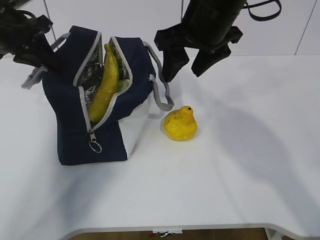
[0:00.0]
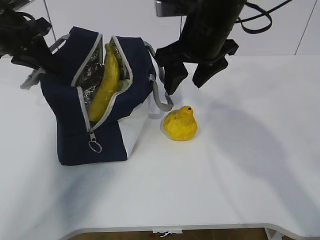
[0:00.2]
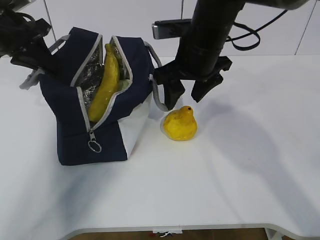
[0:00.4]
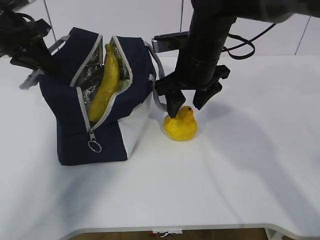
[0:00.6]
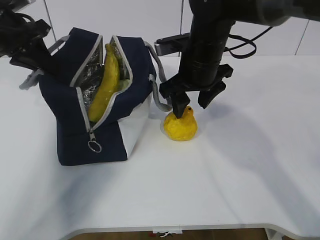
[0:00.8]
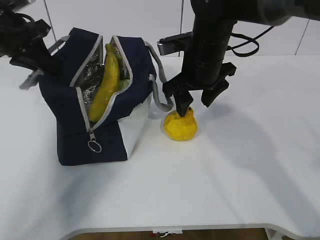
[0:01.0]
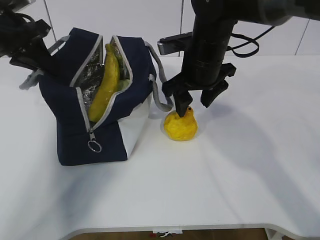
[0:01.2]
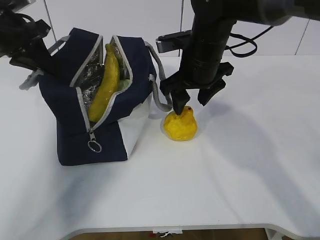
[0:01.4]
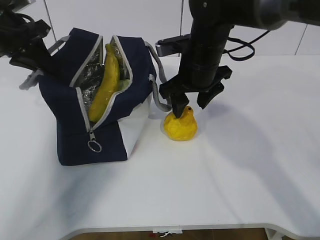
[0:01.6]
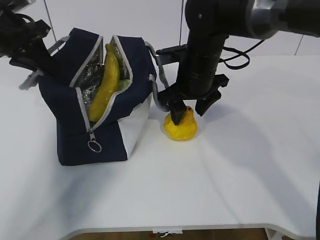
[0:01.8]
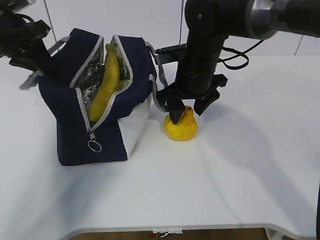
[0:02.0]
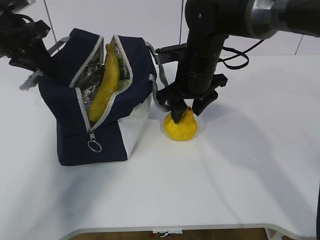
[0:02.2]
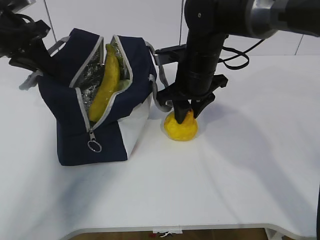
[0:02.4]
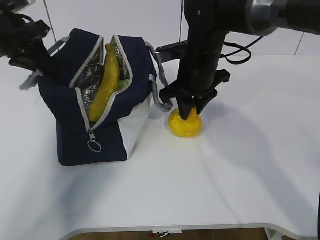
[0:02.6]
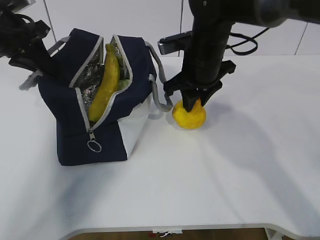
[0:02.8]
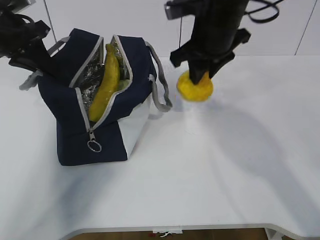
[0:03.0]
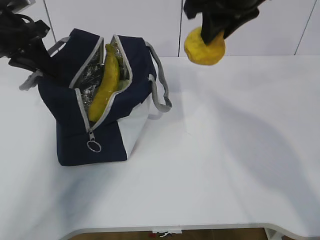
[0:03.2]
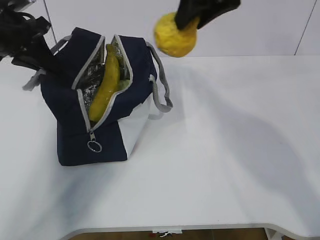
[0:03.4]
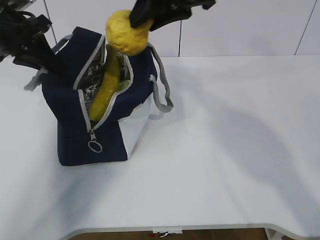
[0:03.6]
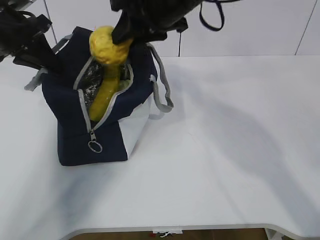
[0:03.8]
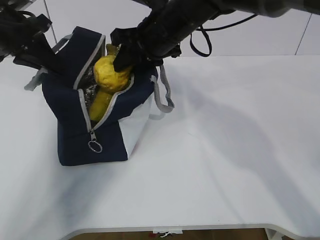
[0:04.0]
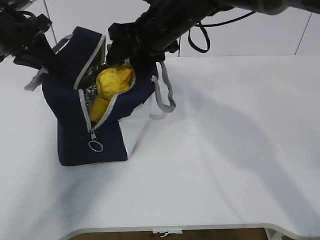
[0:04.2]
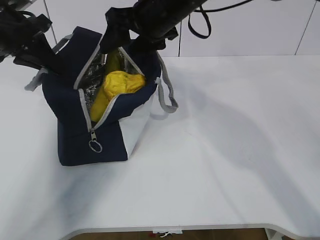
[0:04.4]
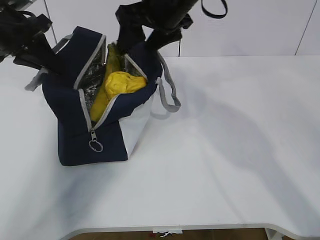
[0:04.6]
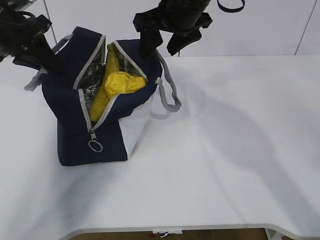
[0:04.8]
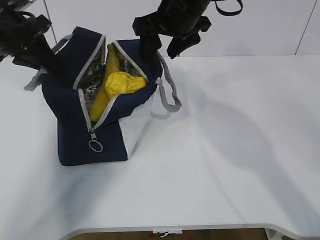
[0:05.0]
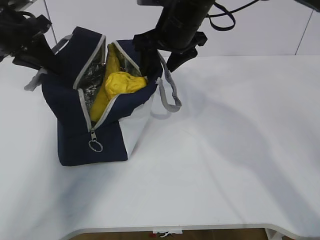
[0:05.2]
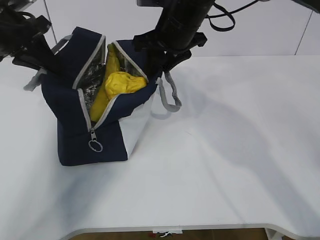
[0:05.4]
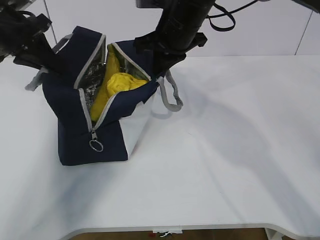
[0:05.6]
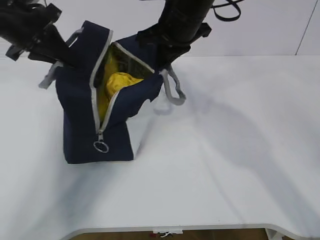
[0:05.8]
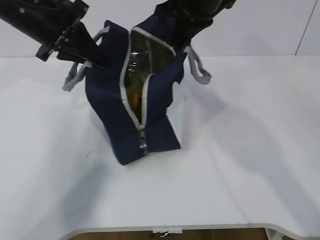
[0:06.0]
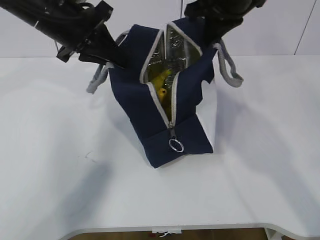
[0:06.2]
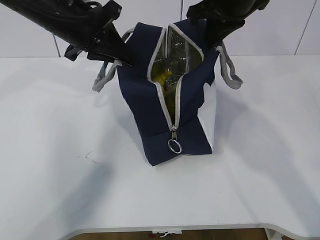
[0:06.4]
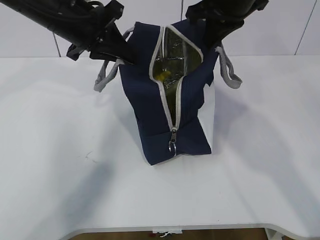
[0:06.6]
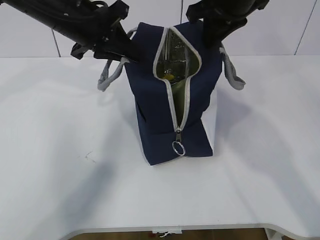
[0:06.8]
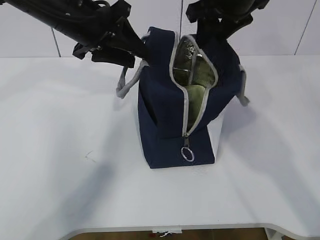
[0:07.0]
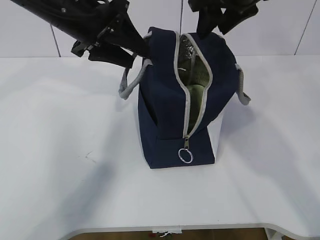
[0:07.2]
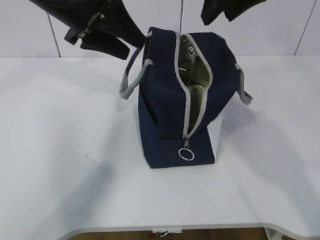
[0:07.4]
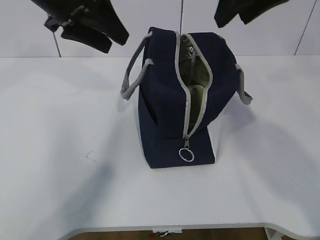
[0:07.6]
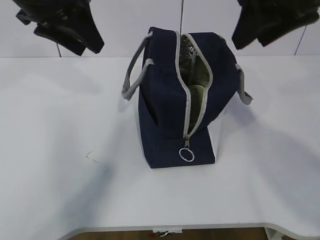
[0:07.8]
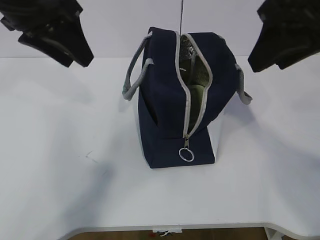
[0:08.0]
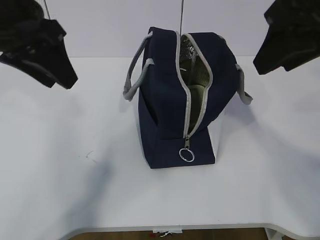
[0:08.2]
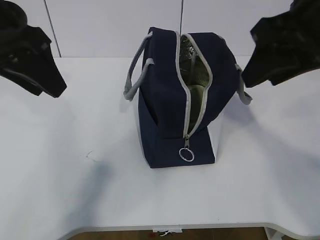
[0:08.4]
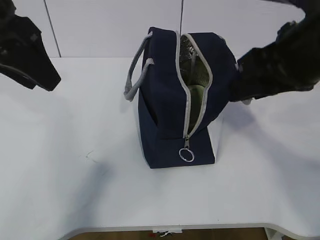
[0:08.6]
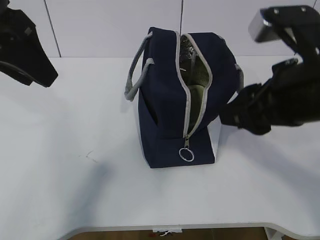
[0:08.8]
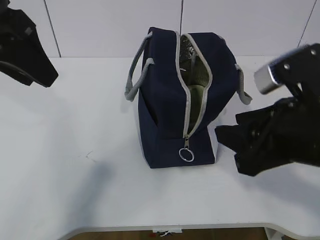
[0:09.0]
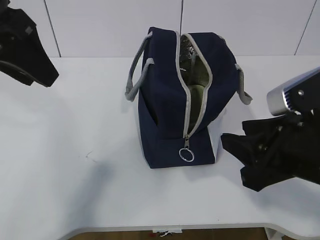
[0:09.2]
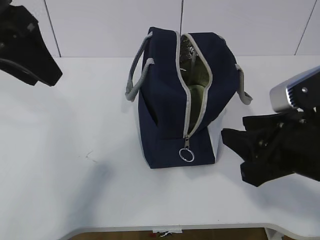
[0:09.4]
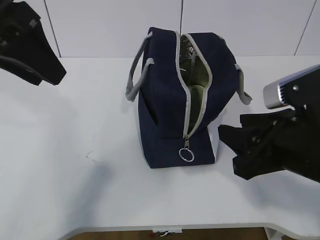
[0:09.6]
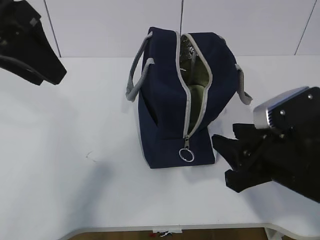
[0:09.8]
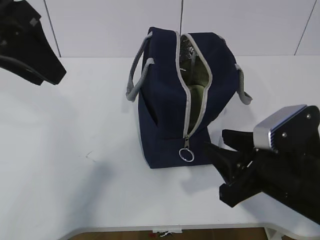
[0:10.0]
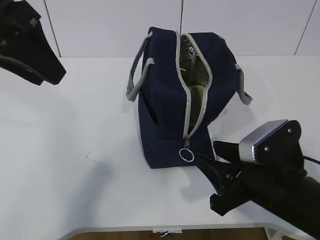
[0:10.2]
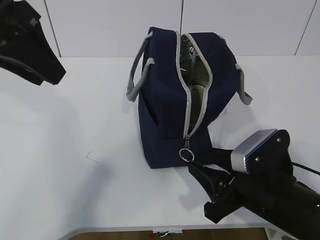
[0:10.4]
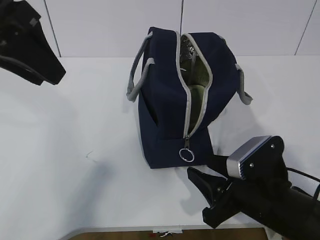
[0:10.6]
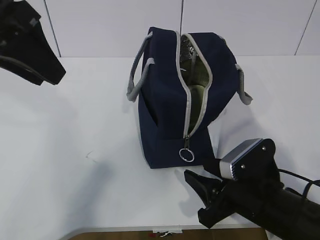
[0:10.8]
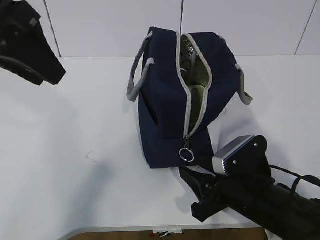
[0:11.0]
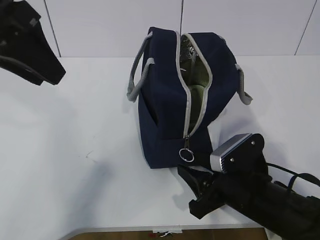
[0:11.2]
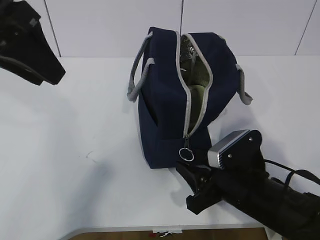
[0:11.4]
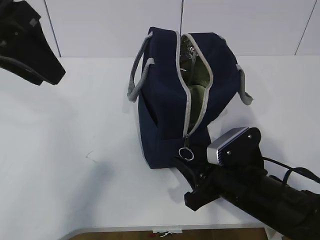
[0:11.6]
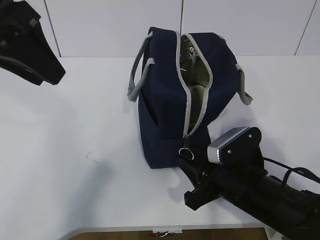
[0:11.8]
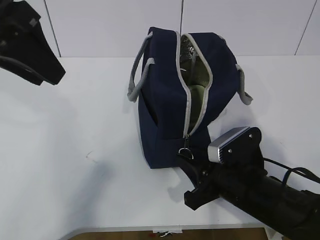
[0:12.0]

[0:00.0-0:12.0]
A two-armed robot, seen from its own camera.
Step, 0:00.0 to 0:00.4: Grab the lunch bag with your right hand.
Step, 0:00.6 to 0:01.8: Move the lunch bag to the right.
Step, 0:02.0 to 0:11.6: Grab the lunch bag with your left hand.
0:00.0 to 0:01.6: The right gripper shifts some 10 cm downward.
0:01.6 to 0:03.0: The right gripper is displaced upward by some 5 cm, and closes.
0:03.0 to 0:04.4: The right gripper is displaced to the left by roughly 5 cm, travels upward and back again, about 10 cm each way, and opens.
0:04.4 to 0:06.0: Both grippers move to the right, some 5 cm. The right gripper closes up.
0:06.0 to 0:07.6: The left gripper changes place by approximately 5 cm, and opens up. The right gripper heads backward, to the right and upward, covering some 10 cm, and opens its fingers.
0:07.6 to 0:09.0: The right gripper goes about 20 cm backward and downward. The left gripper heads backward, covering approximately 10 cm.
0:09.0 to 0:10.4: The right gripper shifts some 15 cm downward.
0:10.4 to 0:12.0: There are only small adjustments of the grippers.

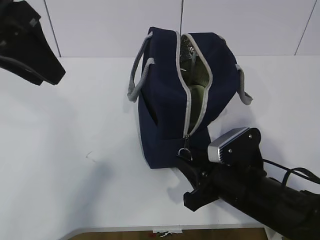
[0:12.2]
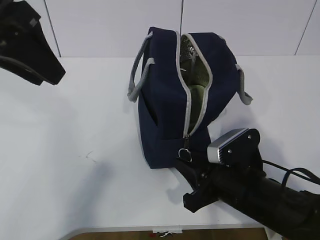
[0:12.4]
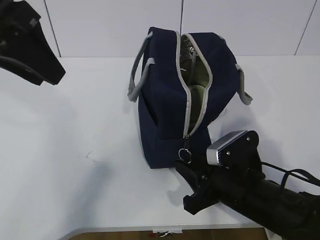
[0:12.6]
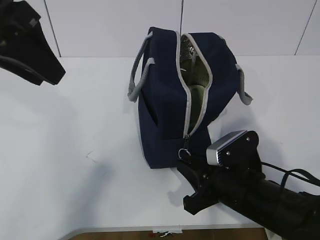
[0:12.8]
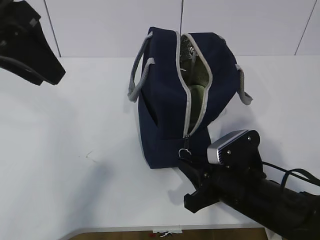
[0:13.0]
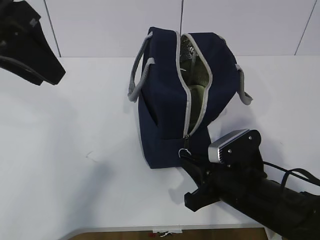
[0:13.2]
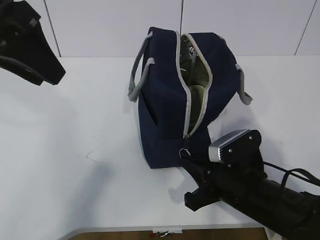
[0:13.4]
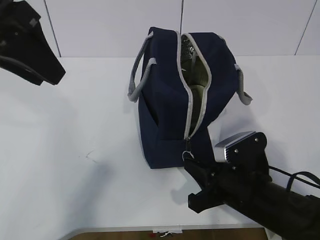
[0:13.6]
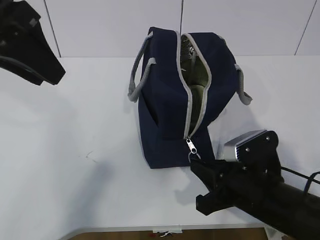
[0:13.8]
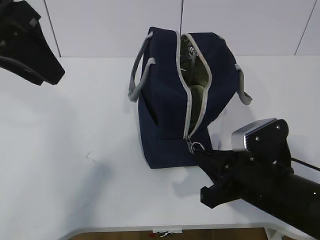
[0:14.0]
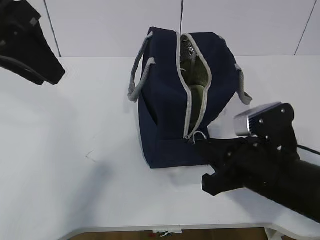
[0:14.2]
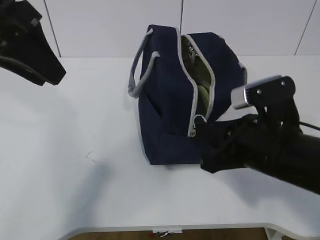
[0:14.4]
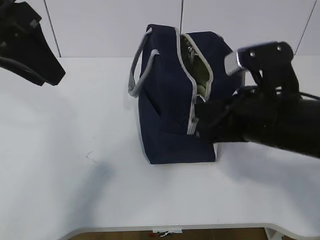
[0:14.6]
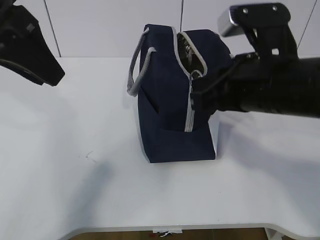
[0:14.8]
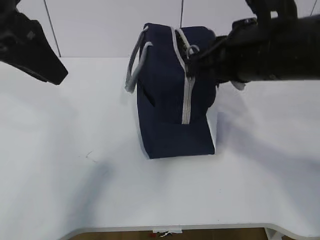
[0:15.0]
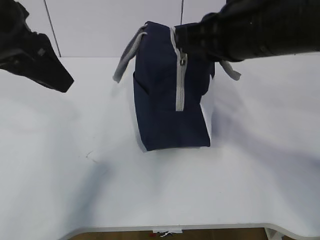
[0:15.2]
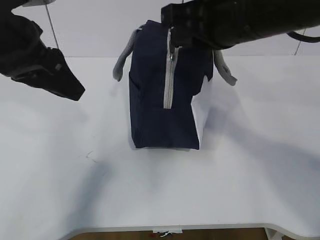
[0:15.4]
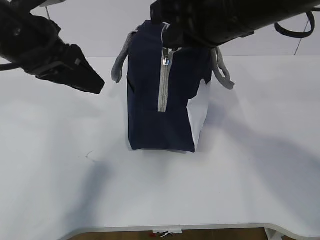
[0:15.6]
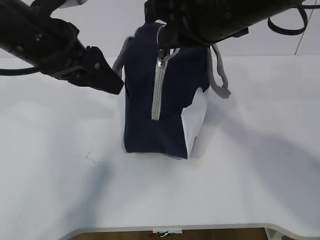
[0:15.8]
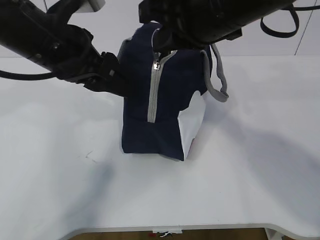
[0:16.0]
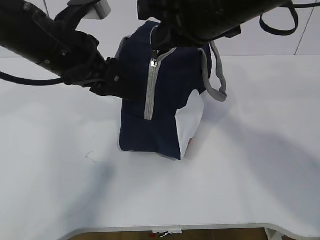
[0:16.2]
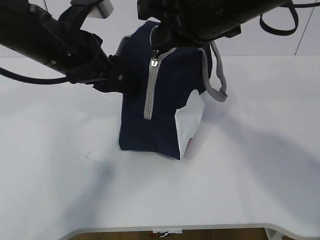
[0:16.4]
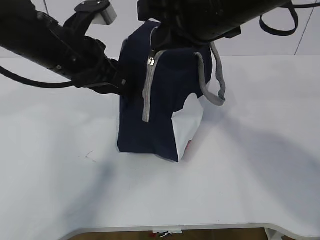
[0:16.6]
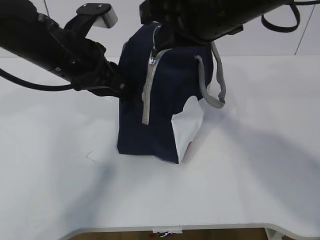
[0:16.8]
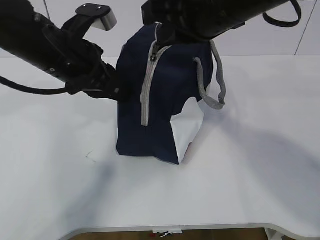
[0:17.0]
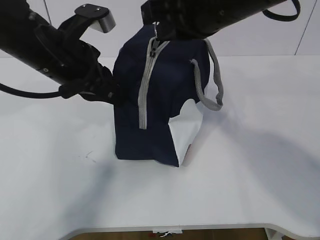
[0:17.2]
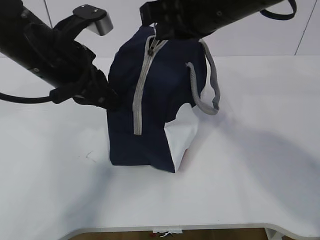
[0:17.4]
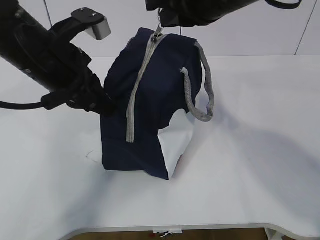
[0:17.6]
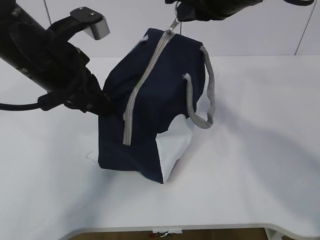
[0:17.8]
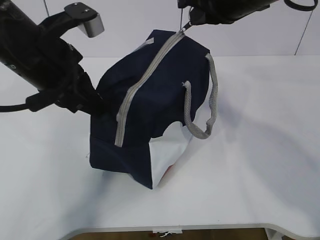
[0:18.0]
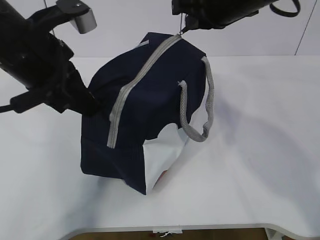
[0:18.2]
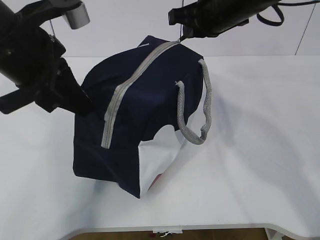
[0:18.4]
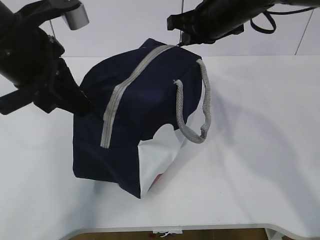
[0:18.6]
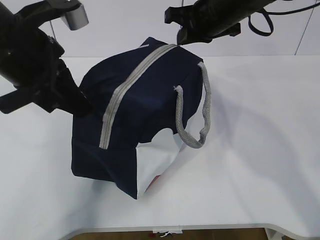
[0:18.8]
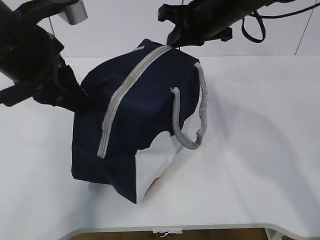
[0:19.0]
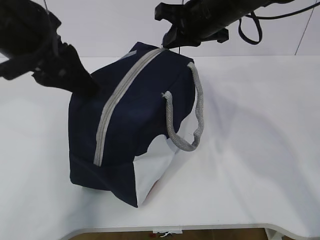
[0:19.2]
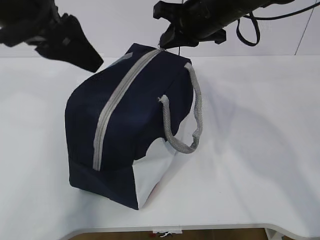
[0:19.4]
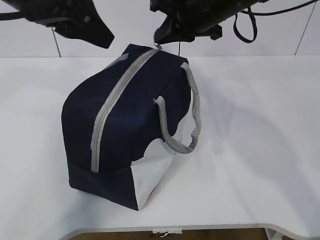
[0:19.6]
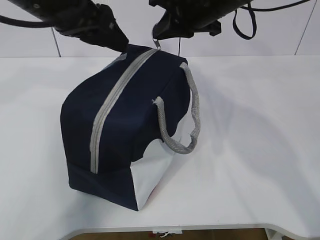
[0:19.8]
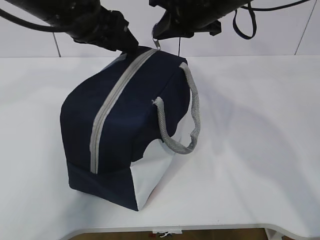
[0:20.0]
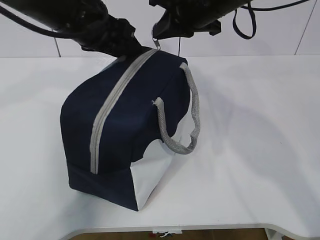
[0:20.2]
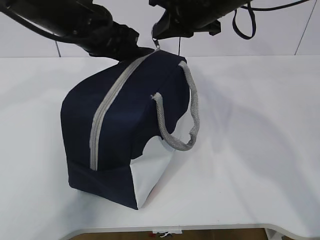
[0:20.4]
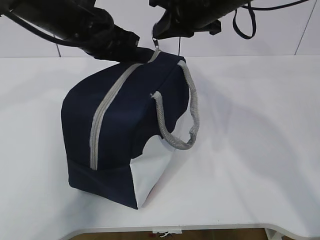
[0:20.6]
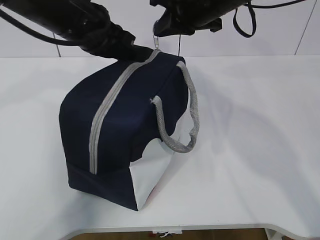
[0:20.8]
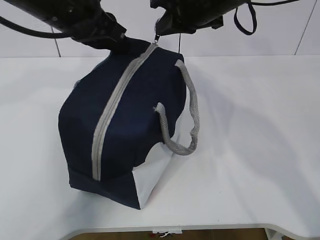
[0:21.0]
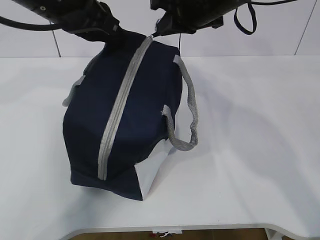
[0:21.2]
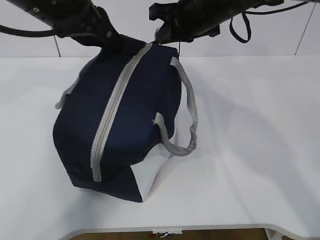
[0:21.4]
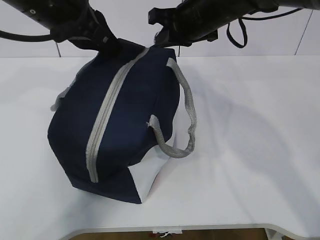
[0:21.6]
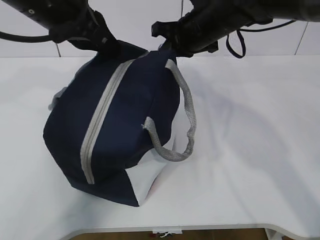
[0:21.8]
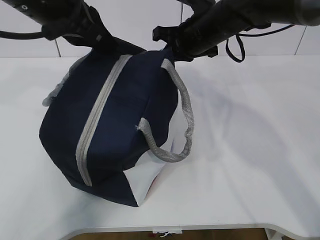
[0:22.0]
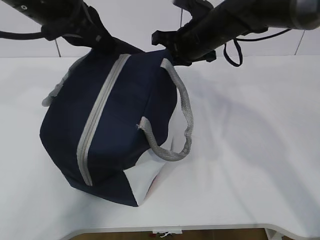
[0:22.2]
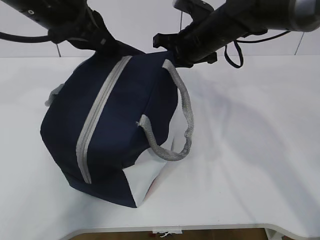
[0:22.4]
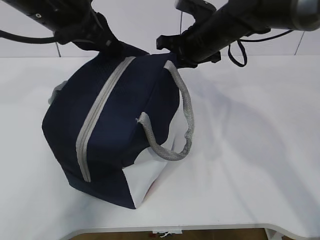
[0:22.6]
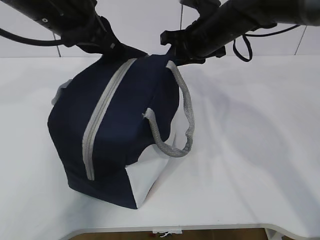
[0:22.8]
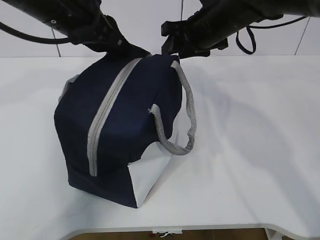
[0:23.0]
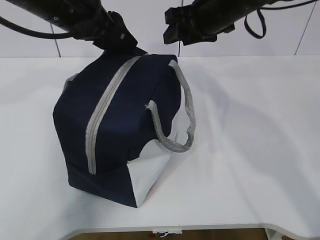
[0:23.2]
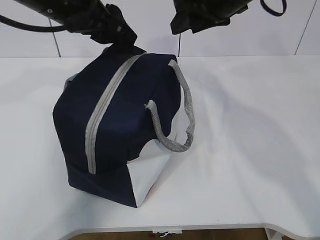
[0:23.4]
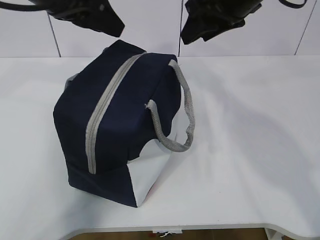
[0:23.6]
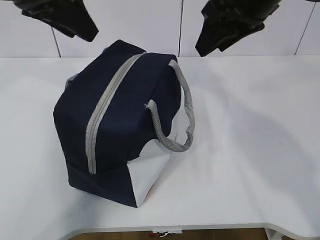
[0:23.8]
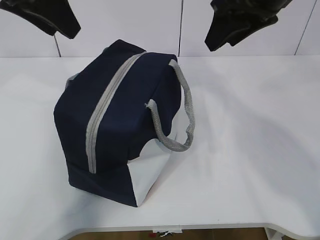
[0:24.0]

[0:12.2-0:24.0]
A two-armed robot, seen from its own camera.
Step, 0:12.2 to 0:14.8: Pull the zipper with your right hand.
Step, 0:15.0 to 0:15.2: Grab the lunch bag with your left hand.
0:12.2 to 0:13.6: The right gripper closes.
0:13.6 to 0:15.2: The right gripper is displaced upward by about 25 cm.
0:15.2 to 0:16.6: The left gripper shifts some 10 cm downward, to the right and forward, and closes its fingers.
0:16.6 to 0:18.2: The left gripper ends up approximately 5 cm from where it was. Meanwhile the right gripper goes approximately 10 cm forward.
0:18.2 to 0:19.6: The left gripper goes approximately 5 cm upward, and opens.
0:19.6 to 0:21.0: The left gripper closes.
0:21.0 to 0:22.6: The right gripper is displaced downward by approximately 10 cm.
0:22.6 to 0:24.0: The left gripper travels upward by roughly 5 cm, and opens its fingers. Meanwhile the right gripper travels upward and backward by approximately 15 cm, and opens up.
